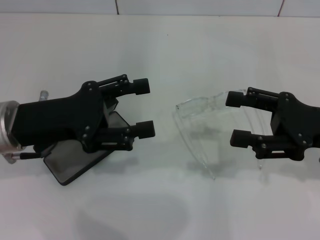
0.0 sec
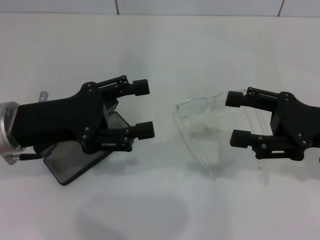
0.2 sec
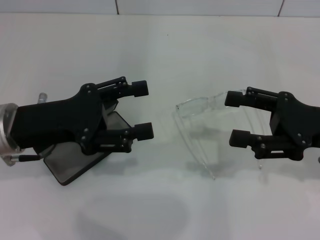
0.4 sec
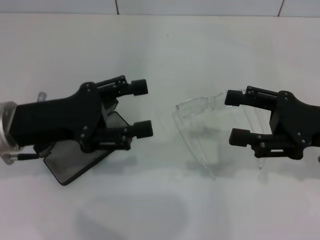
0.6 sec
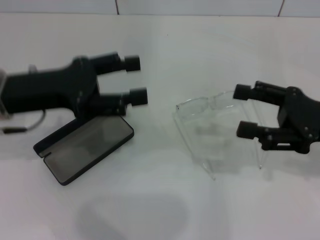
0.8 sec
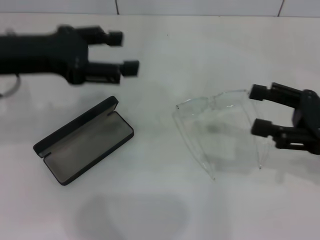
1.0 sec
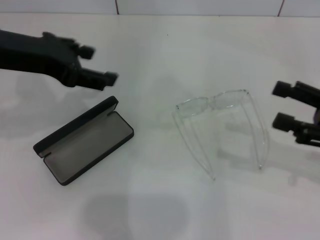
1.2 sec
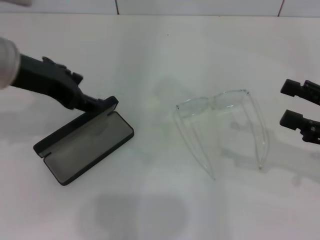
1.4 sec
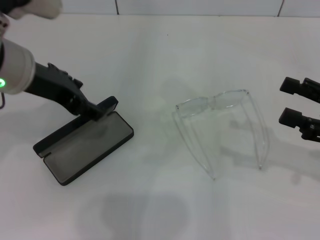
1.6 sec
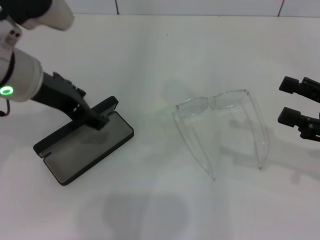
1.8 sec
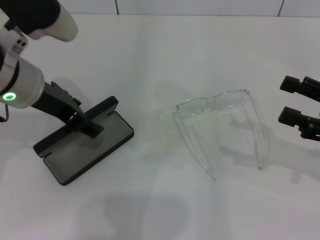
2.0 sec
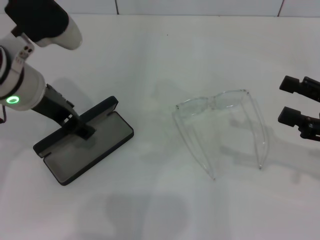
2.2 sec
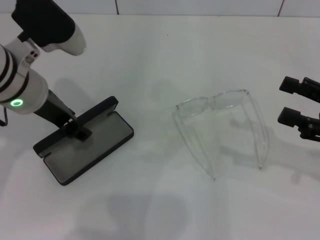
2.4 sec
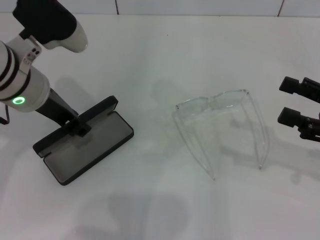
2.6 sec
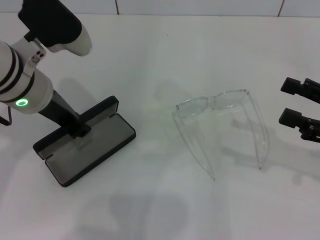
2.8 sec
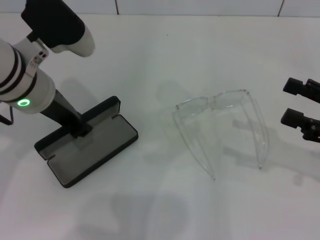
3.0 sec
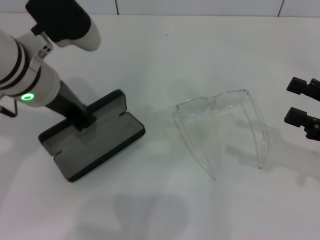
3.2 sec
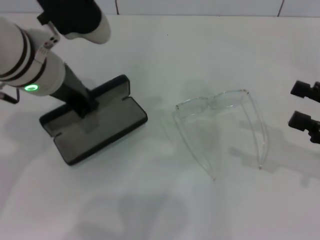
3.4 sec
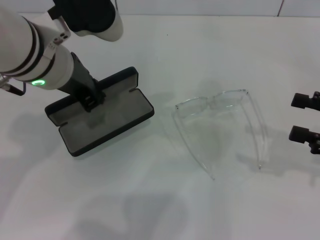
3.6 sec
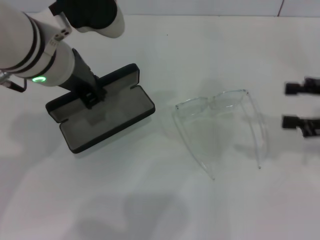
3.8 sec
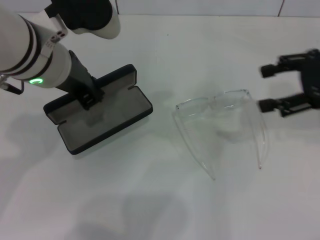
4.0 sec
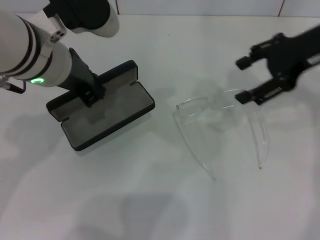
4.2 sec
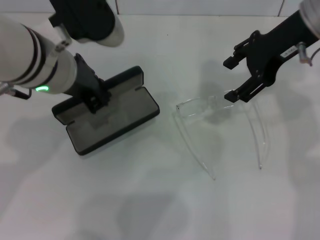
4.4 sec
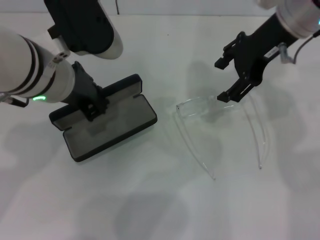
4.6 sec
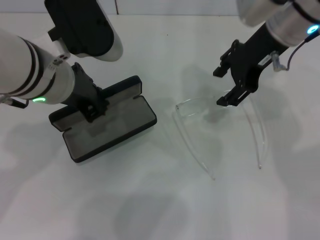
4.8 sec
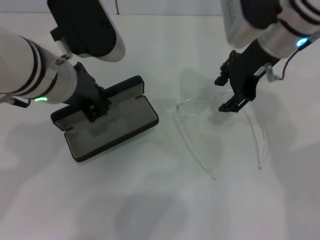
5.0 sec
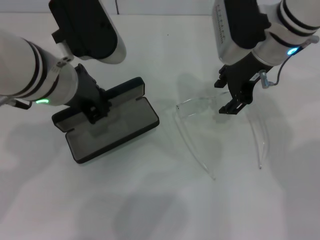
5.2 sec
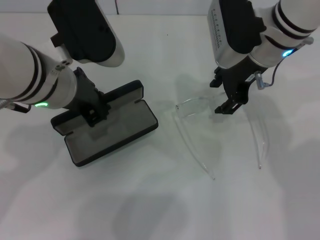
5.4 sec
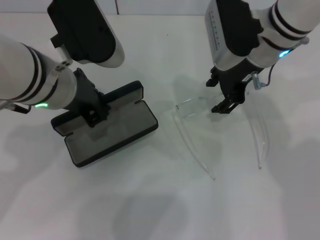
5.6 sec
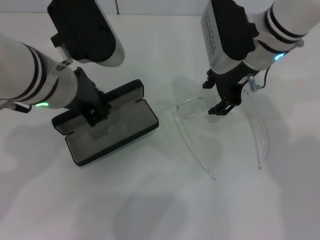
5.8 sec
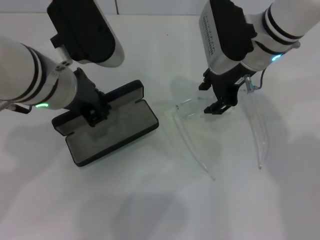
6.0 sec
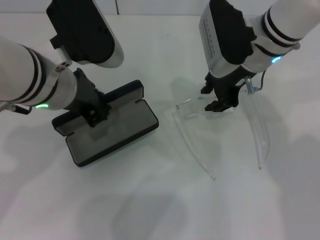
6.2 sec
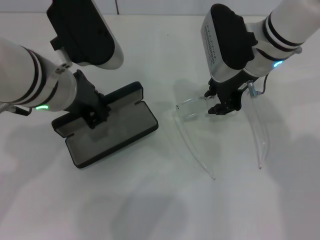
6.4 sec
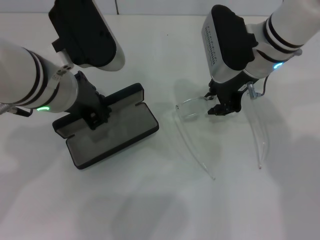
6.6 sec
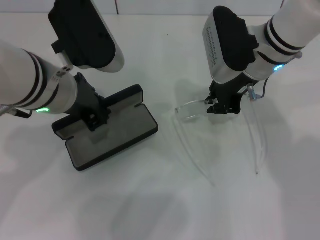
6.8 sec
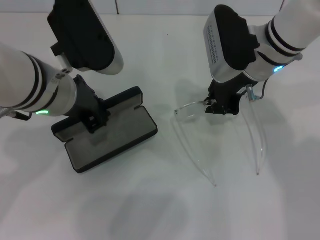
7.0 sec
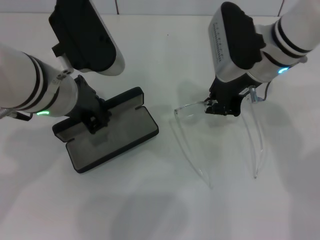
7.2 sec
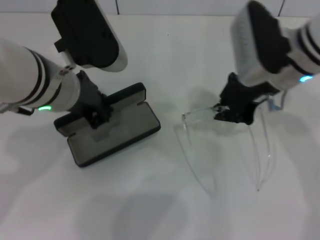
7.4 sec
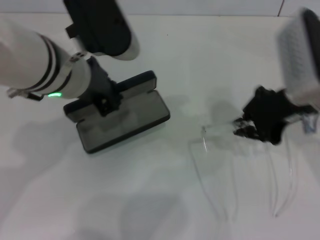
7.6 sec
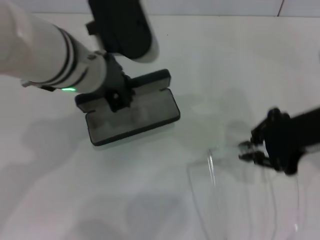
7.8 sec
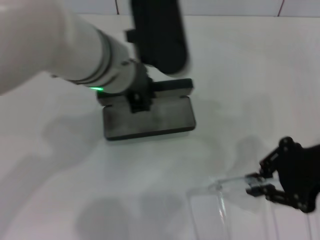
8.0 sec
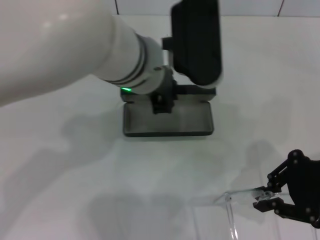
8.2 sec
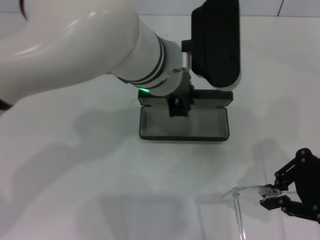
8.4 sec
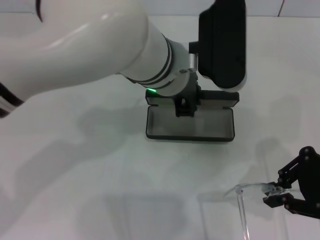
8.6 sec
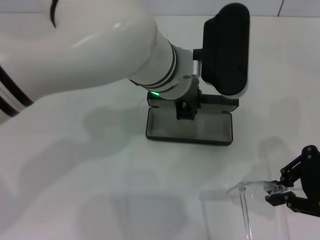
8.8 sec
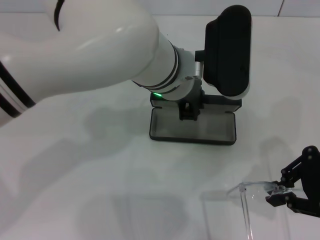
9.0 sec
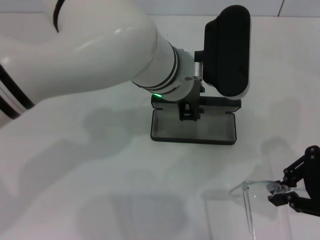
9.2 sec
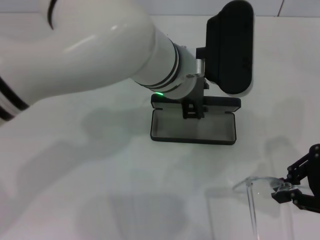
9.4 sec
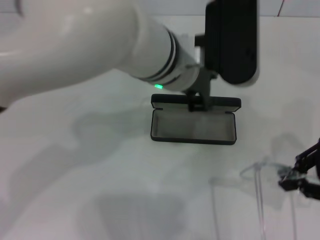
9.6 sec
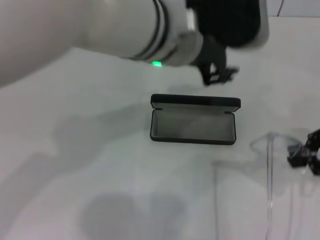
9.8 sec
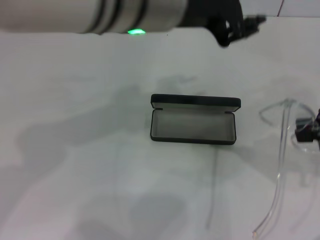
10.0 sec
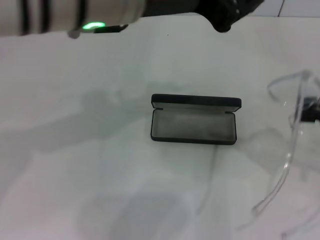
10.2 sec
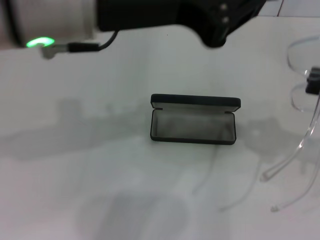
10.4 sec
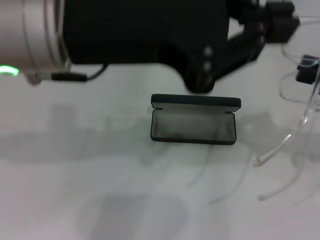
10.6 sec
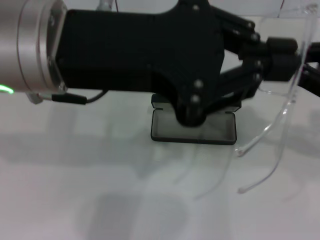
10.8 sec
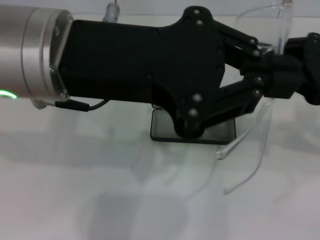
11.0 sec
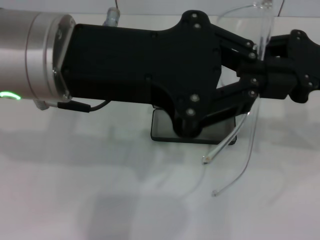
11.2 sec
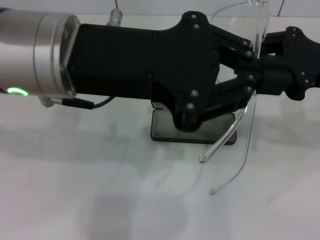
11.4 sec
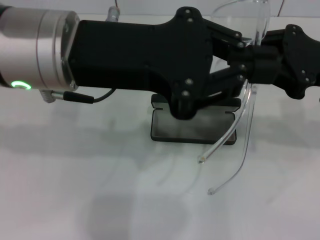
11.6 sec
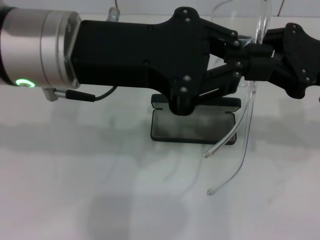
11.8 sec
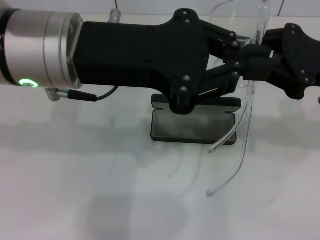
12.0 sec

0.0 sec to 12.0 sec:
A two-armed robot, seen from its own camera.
Step, 0.0 sec to 2.8 sec: Grab the glasses case with your left hand.
Step, 3.0 sec to 7.0 sec: Place the glasses case in the center of the table with your left hand.
Step, 7.2 sec to 9.4 sec: Grab the eyeglass frame with your right hand.
0.0 sec to 1.6 sec: The right gripper shifts roughly 5 cm to the right, while the left gripper shifts some 10 cm upward.
1.6 sec to 3.0 sec: The left gripper closes.
3.0 sec to 4.4 sec: The right gripper goes about 25 cm forward, to the left and upward.
4.4 sec to 6.0 sec: The right gripper shifts roughly 10 cm downward and to the left, and closes its fingers.
6.0 sec to 7.6 sec: The right gripper travels backward and to the right by some 10 cm, and closes its fingers.
7.6 sec to 9.0 sec: The left gripper goes some 10 cm to the right. The right gripper is displaced backward and to the right by some 10 cm.
9.0 sec to 10.4 sec: The left gripper travels upward, to the left and backward by some 20 cm. The right gripper is displaced to the right by roughly 5 cm.
10.4 sec to 12.0 sec: The right gripper goes about 10 cm to the left and forward, while the left gripper travels downward by some 5 cm.

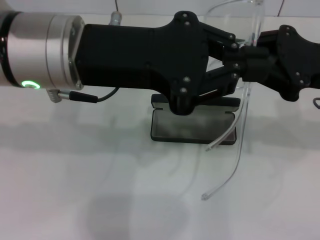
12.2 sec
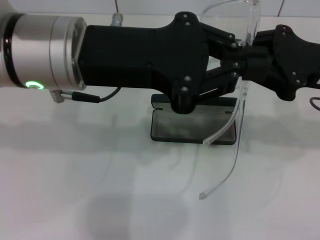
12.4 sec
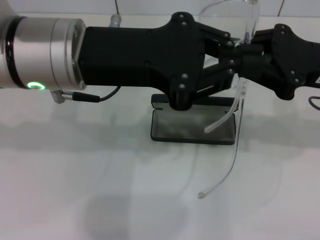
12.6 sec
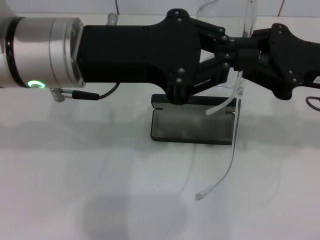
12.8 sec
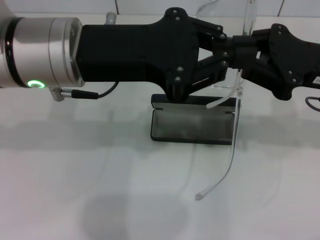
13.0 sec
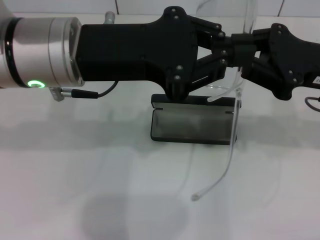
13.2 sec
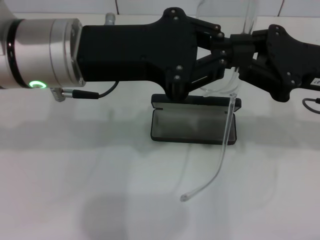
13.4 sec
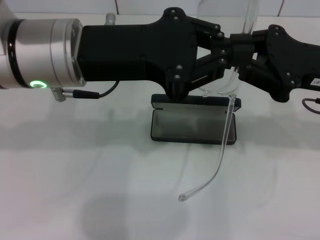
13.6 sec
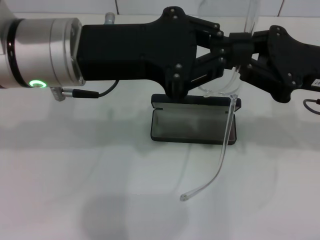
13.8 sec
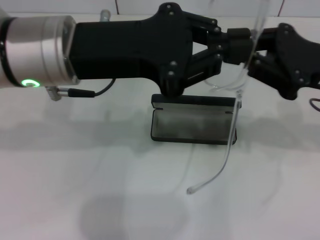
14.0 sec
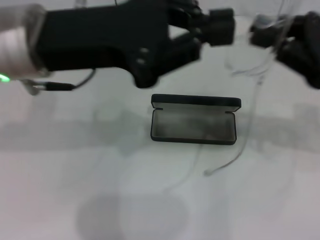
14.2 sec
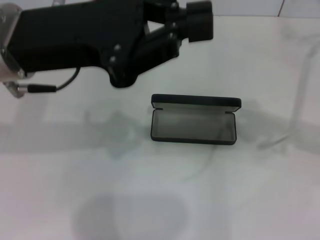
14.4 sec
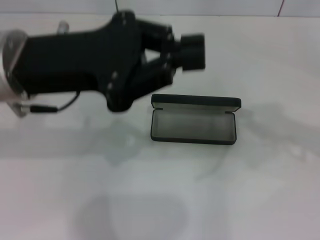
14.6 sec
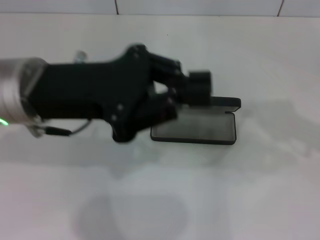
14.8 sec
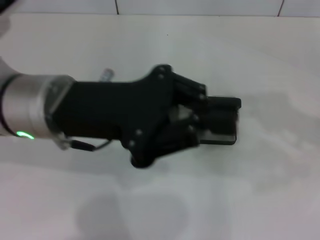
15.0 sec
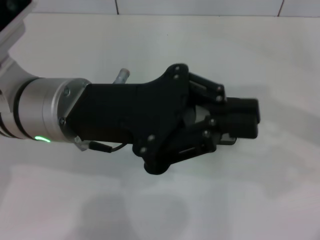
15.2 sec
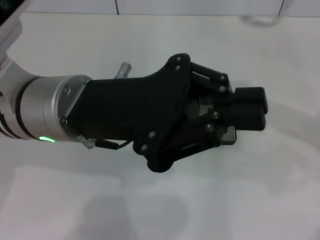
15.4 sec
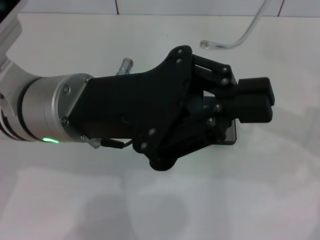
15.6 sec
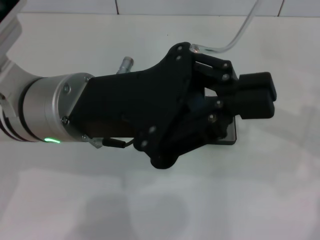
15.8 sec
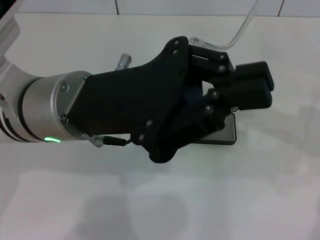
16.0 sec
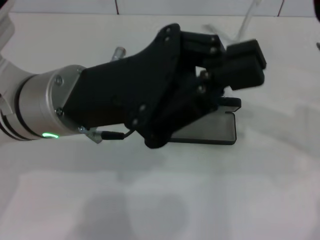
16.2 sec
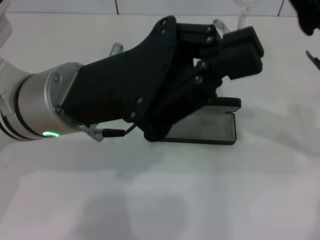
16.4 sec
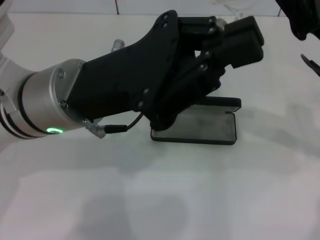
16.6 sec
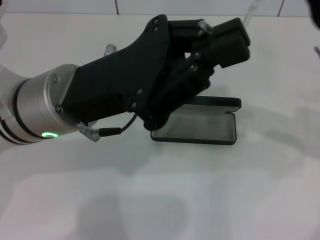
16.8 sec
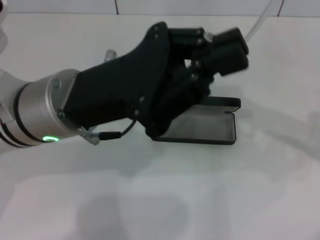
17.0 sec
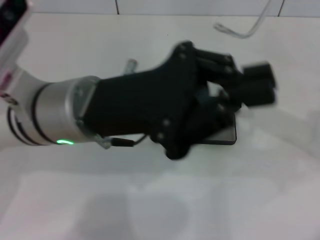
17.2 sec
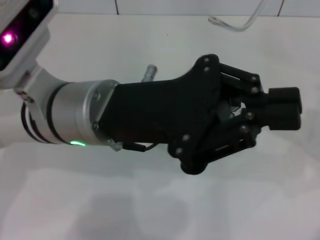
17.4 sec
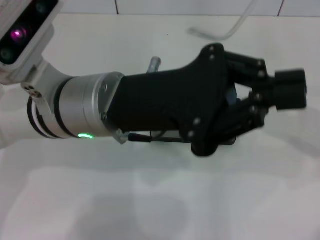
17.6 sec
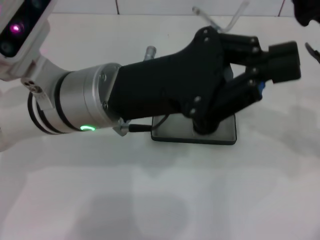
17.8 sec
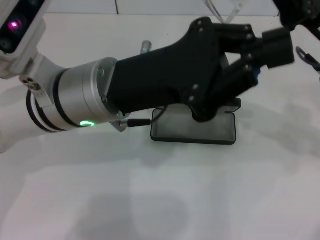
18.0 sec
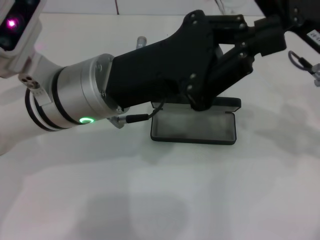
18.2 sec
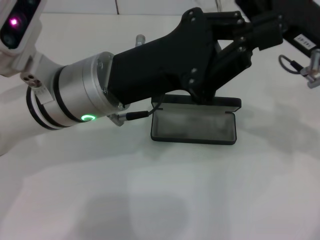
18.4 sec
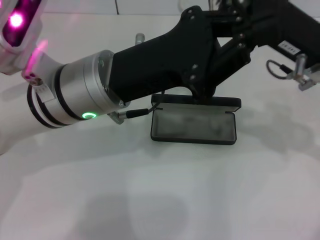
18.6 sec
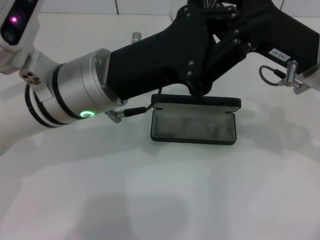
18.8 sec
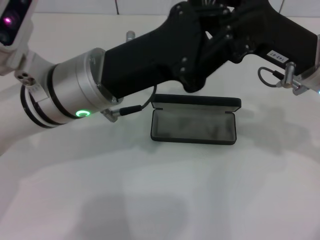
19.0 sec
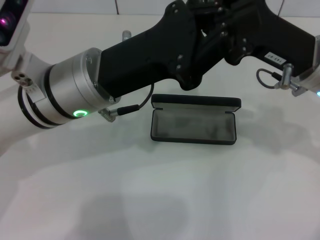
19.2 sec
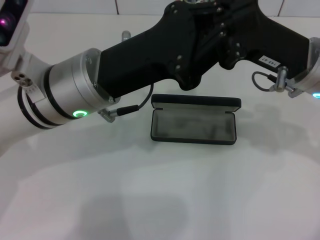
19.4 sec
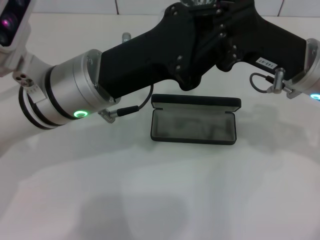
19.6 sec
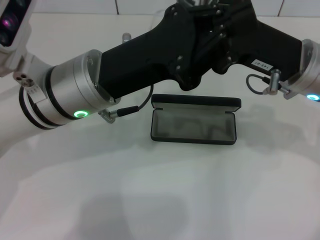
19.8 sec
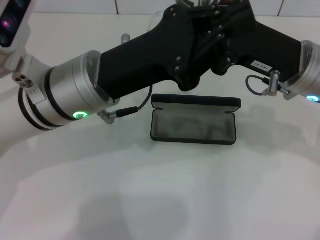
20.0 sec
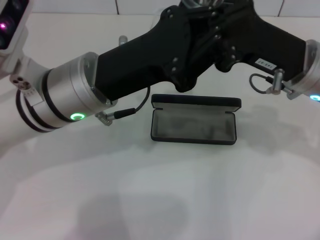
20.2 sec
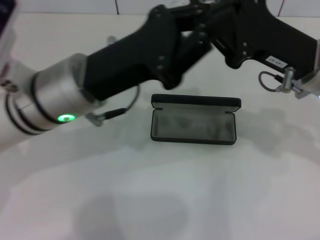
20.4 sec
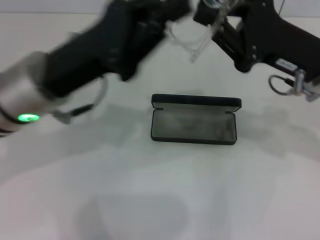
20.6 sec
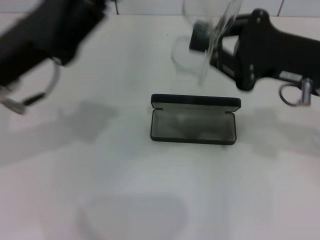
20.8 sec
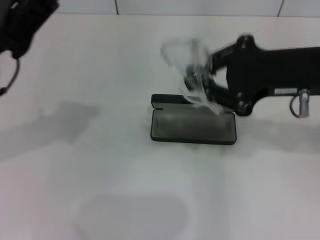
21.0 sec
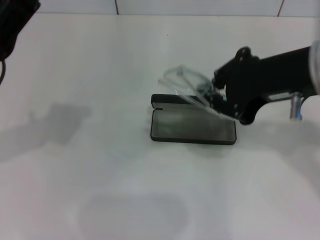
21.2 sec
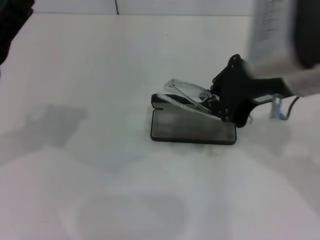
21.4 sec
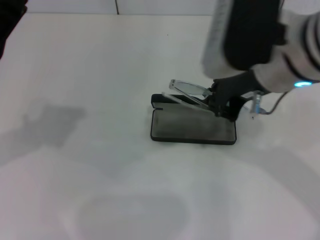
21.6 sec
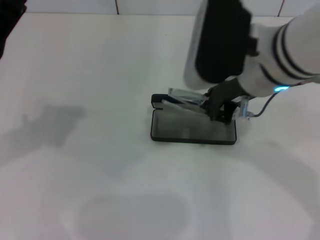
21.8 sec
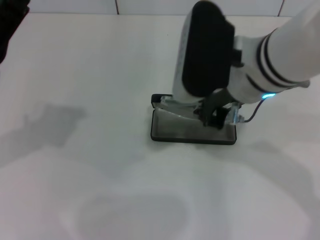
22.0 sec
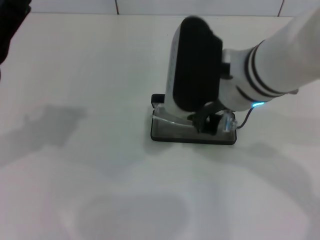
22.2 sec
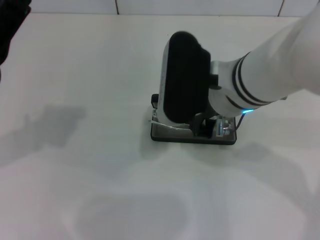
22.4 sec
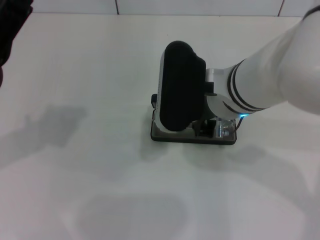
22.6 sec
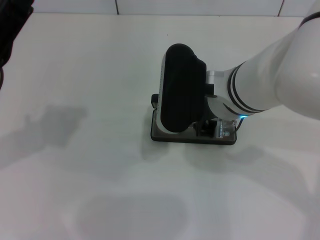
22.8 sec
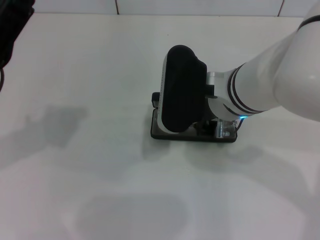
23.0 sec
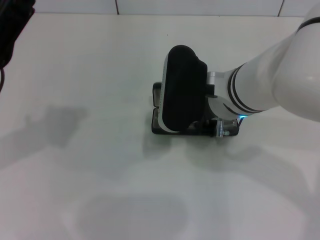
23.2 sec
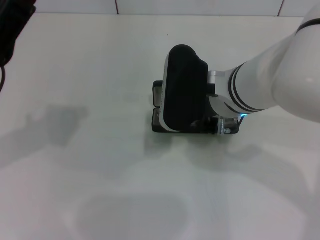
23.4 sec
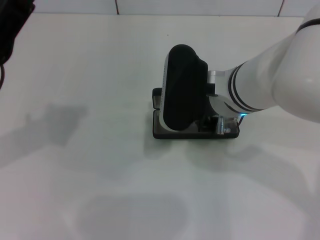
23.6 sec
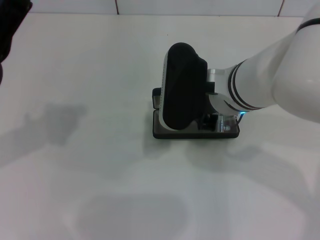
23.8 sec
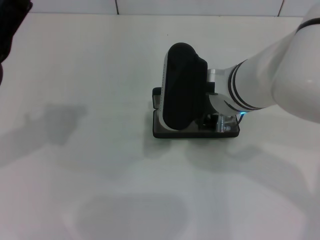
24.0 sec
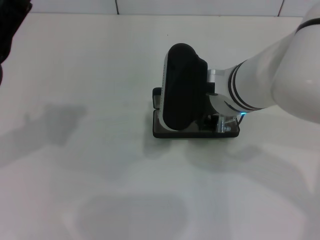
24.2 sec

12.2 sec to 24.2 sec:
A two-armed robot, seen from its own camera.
Step, 12.2 sec to 19.6 sec: Fold the frame with your left hand.
12.2 sec to 13.8 sec: The grippers make only small movements.
13.8 sec to 15.2 sec: The left gripper travels downward by roughly 5 cm.
15.2 sec to 16.6 sec: The right gripper goes about 5 cm to the left.
19.8 sec to 21.2 sec: The right gripper moves upward, about 10 cm. The left gripper travels to the left by some 15 cm.
21.2 sec to 22.6 sec: The right gripper is displaced to the left and downward by approximately 15 cm.
22.6 sec to 24.2 sec: There are only small adjustments of the grippers.
